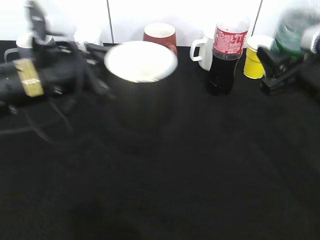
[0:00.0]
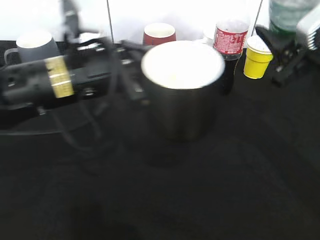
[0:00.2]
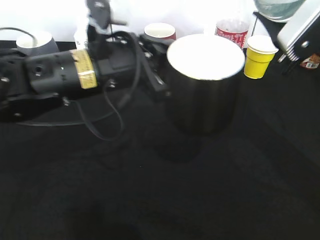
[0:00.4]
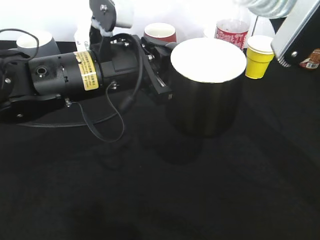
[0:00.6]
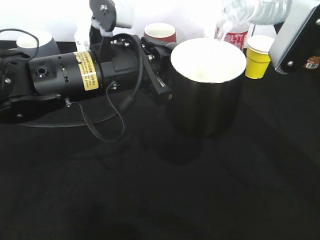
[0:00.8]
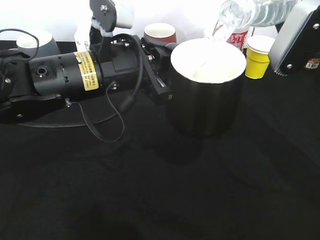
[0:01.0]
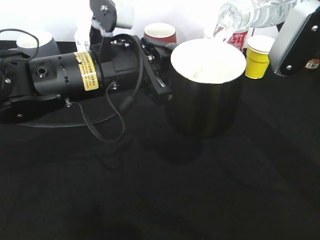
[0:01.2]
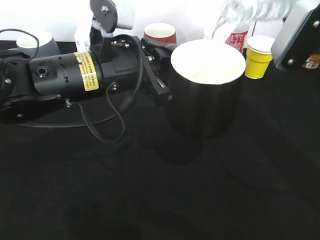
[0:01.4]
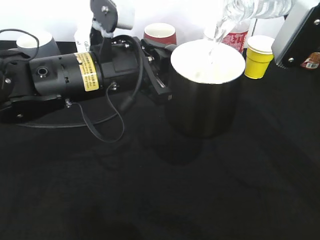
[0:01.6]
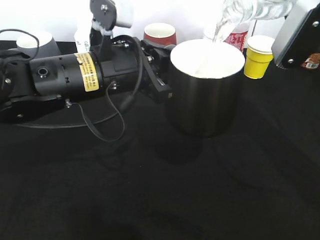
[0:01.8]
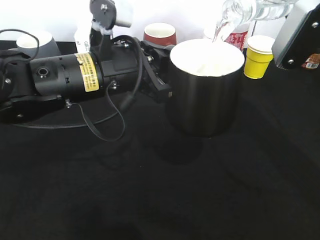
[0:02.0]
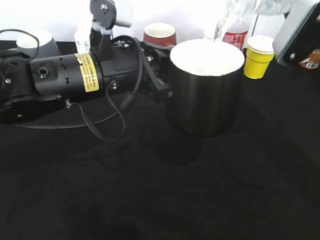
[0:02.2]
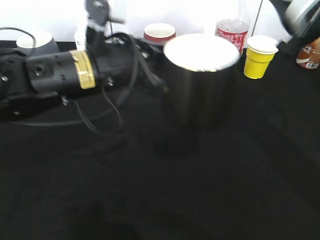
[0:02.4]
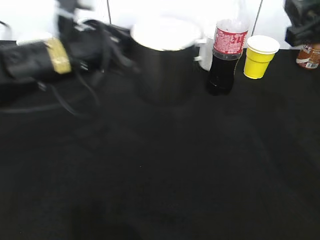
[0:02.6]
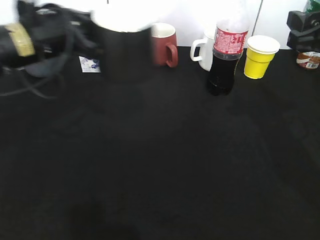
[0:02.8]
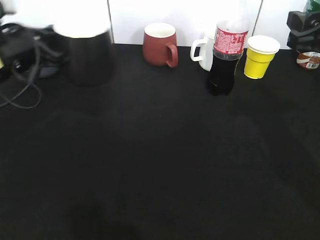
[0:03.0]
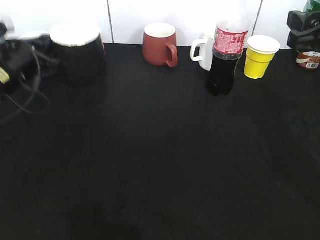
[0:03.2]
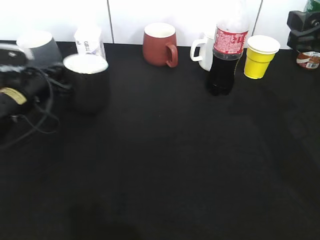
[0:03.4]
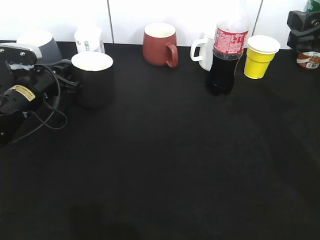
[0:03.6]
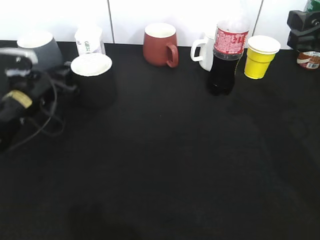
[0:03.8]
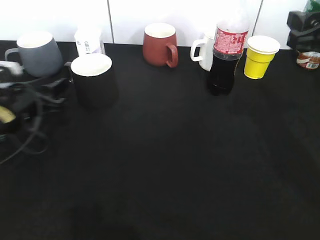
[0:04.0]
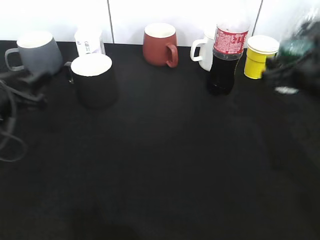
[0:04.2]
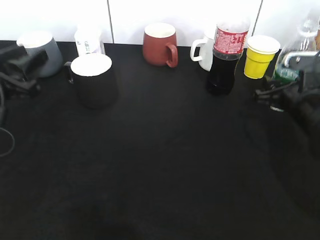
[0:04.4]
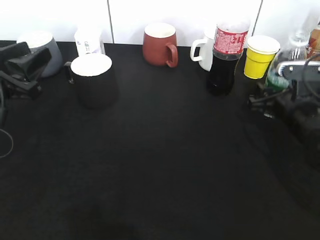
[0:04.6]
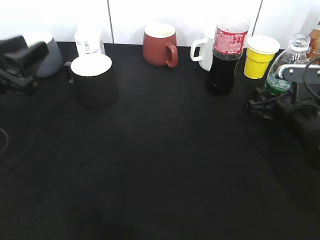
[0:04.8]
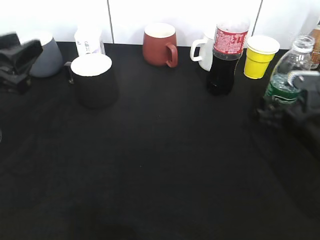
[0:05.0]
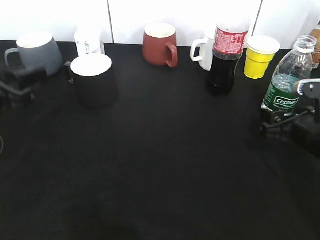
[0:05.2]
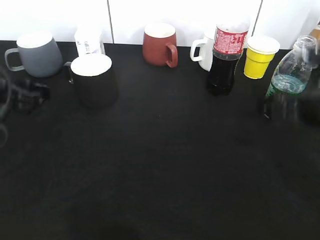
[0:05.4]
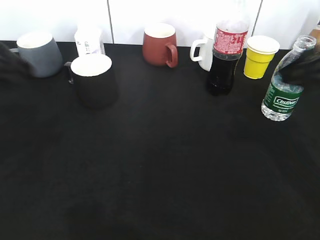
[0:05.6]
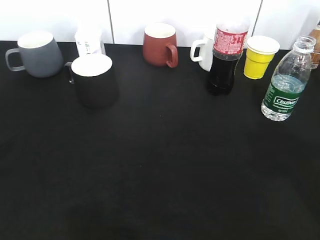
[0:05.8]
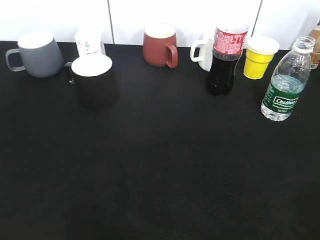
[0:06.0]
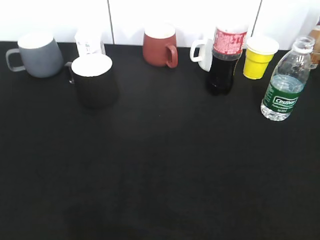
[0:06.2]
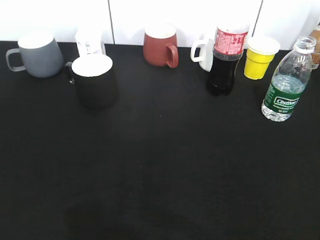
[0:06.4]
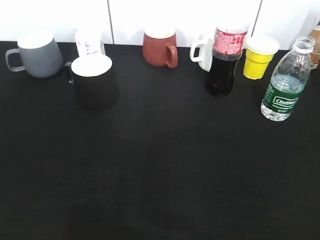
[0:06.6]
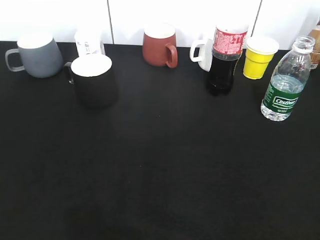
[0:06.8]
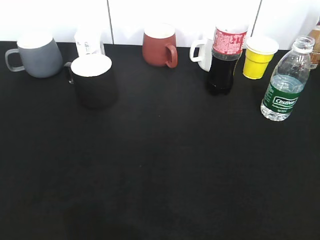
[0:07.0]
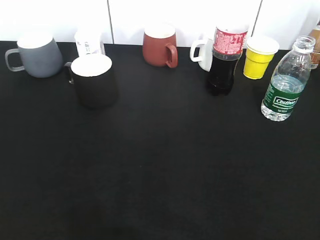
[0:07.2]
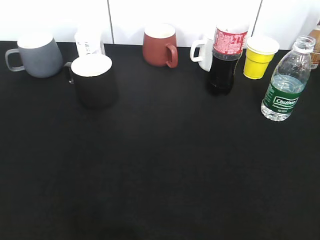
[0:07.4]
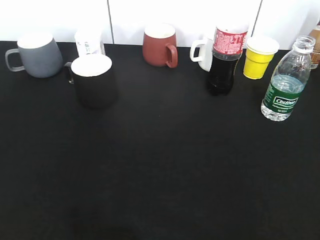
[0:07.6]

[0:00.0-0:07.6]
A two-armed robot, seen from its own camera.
Step, 0:00.0 to 0:02.4: Pour the water from bottle to cup with right gripper.
Step, 0:02.6 to 0:03.8: Place the black cup on the table with left gripper.
Step, 0:04.0 to 0:05.2: Place the water bottle on the table with right gripper.
0:00.0 to 0:01.6: The left gripper goes roughly 5 cm to the right, while the right gripper shifts approximately 10 cm upward.
0:01.6 to 0:03.0: The left gripper shifts roughly 15 cm to the left.
0:03.0 to 0:04.6: The right gripper is displaced downward by some 15 cm. Meanwhile the left gripper goes roughly 5 cm backward, and opens its fingers.
0:04.6 to 0:06.0: Both grippers travel together backward and upward, about 30 cm. The right gripper opens.

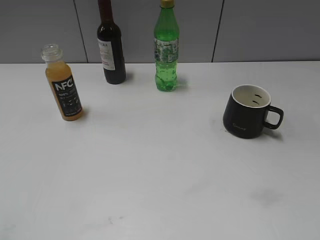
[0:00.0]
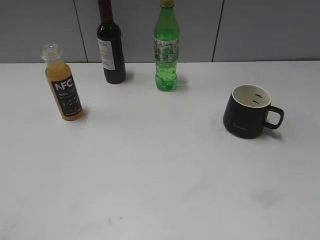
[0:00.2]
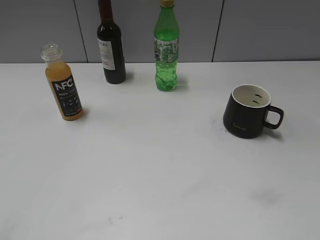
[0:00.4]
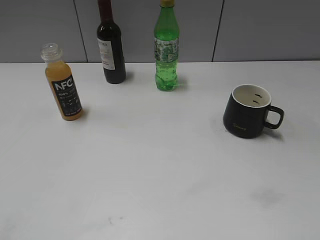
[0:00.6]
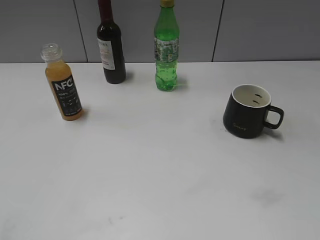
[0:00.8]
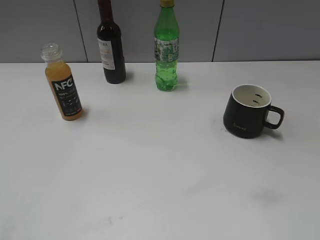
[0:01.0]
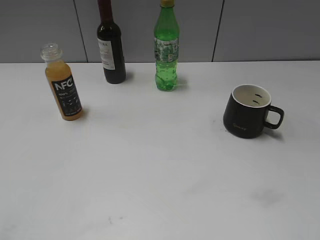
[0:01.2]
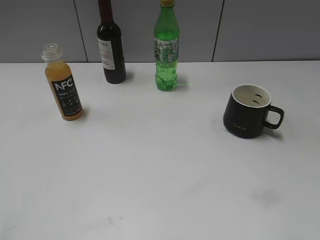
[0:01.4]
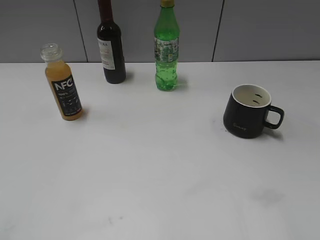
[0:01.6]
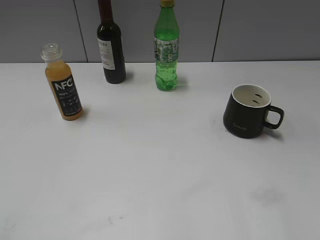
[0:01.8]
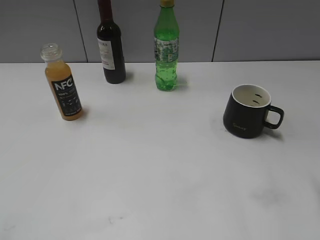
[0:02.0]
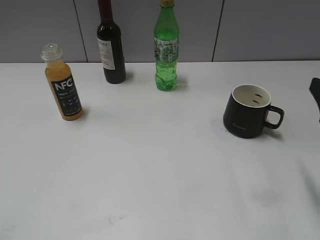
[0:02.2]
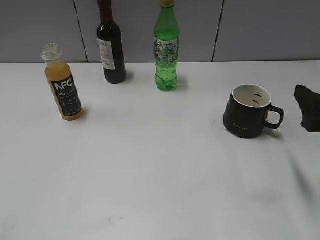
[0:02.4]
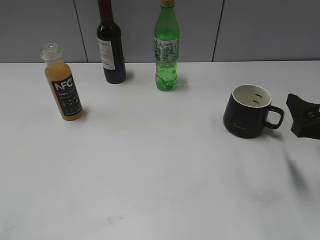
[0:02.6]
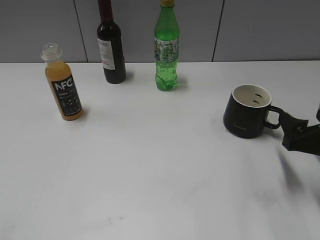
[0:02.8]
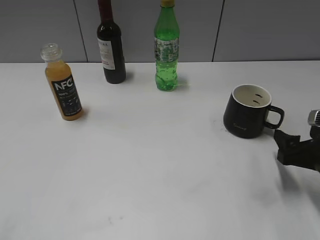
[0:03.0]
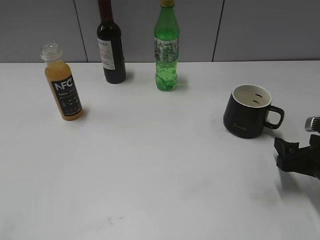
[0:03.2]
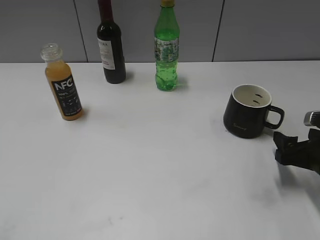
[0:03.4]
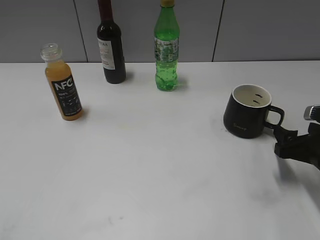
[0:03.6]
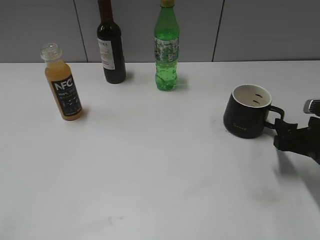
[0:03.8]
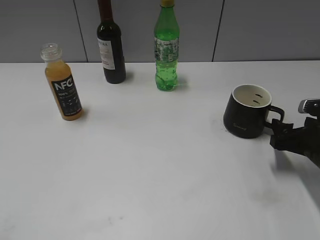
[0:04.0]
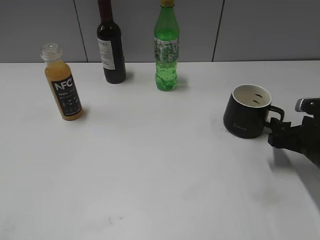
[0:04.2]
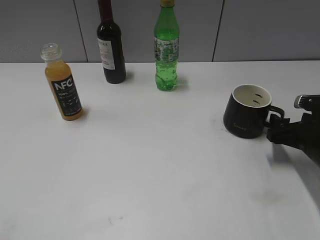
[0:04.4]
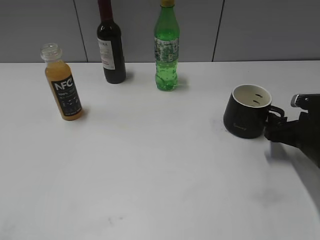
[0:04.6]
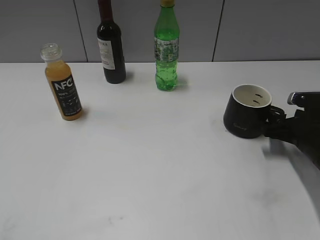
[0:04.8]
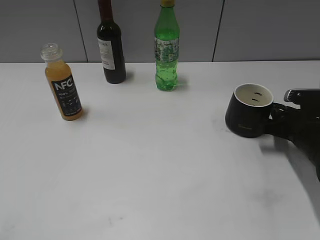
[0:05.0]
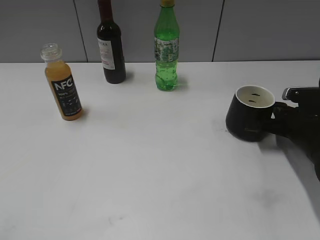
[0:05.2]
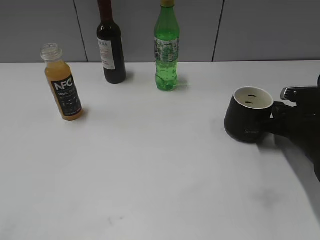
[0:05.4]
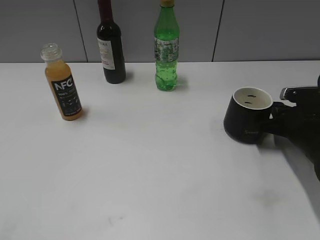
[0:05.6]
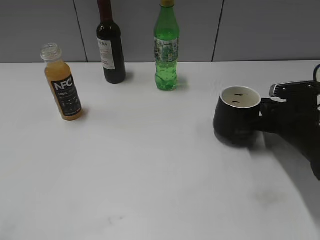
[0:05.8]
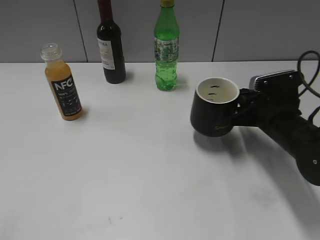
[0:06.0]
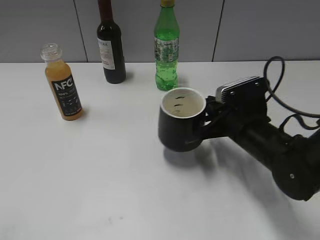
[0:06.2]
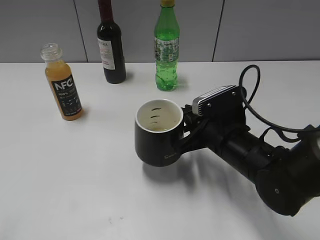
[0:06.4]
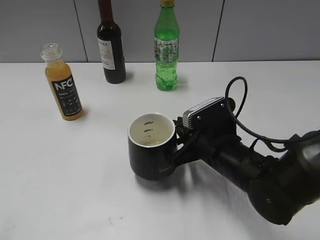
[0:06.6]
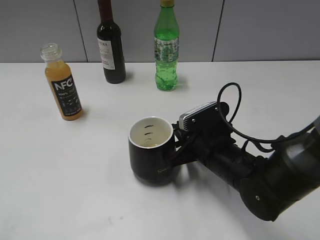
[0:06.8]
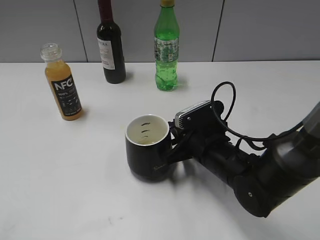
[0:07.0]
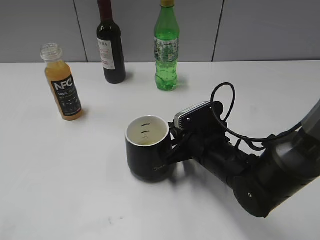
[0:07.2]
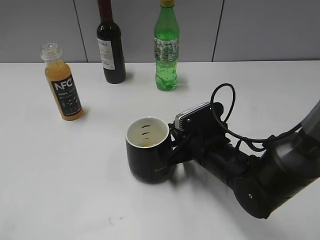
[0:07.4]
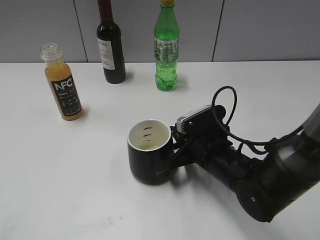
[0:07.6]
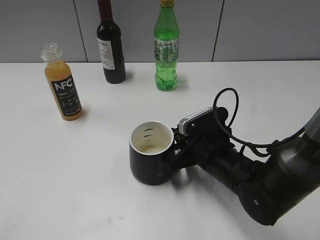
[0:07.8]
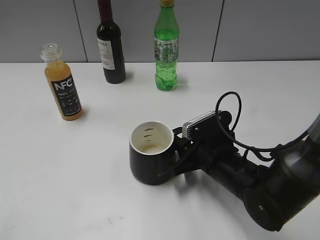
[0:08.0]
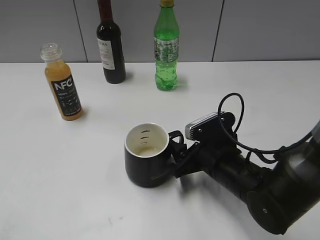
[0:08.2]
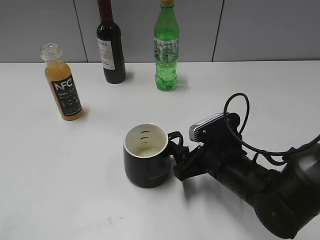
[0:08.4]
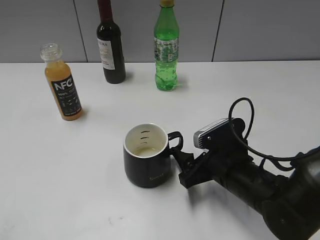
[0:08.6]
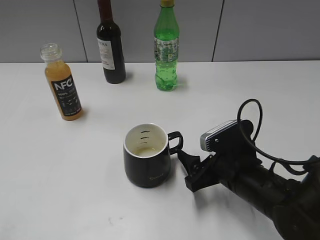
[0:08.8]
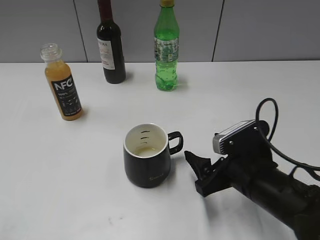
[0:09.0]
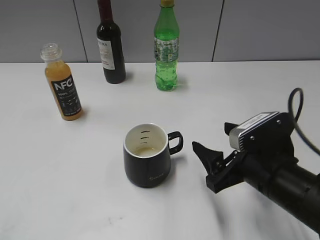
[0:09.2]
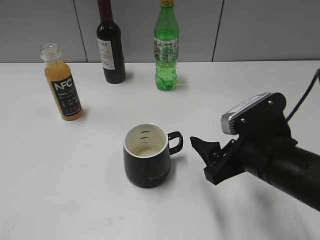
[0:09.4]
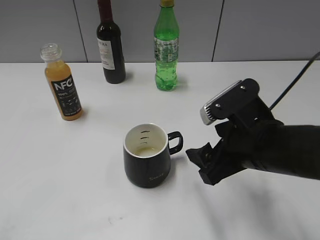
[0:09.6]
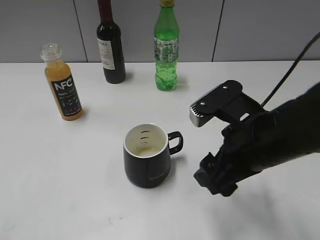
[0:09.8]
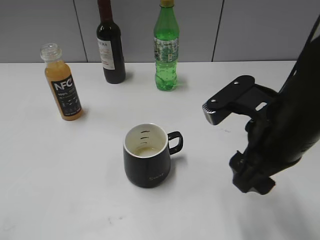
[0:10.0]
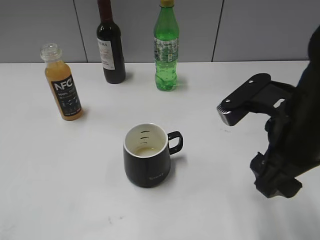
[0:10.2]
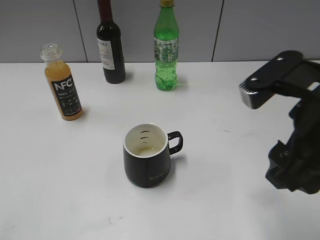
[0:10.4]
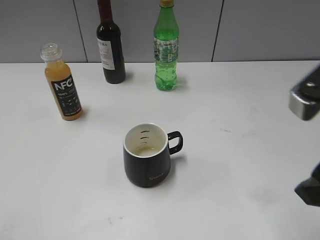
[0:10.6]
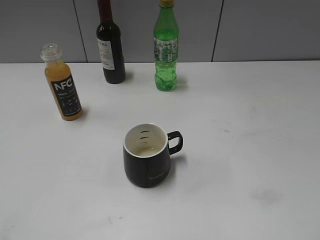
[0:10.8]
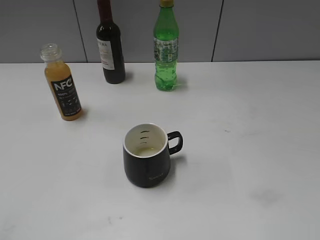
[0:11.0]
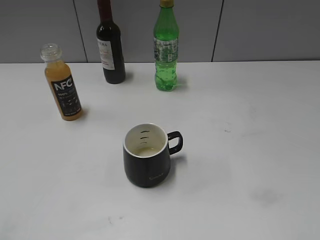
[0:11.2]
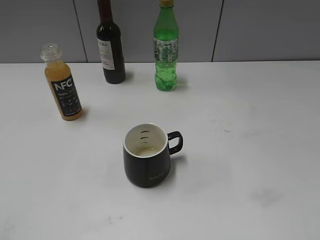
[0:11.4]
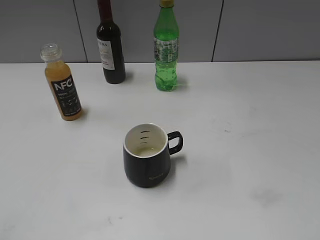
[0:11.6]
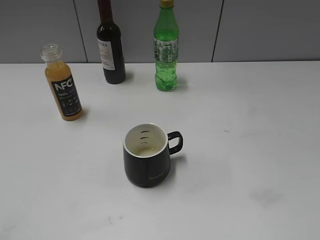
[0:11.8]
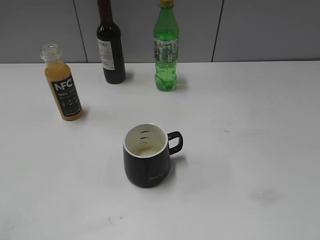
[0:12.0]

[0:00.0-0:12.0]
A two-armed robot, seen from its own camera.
Step, 0:02.2 to 0:05.2: Grasp the black cup with right gripper.
Step, 0:05.6 to 0:08.4: Place the black cup in the center of view with right gripper.
0:01.6 to 0:03.0: The right gripper heads downward and forward, covering roughly 20 cm.
0:03.0 to 0:04.4: The right gripper shifts by some 5 cm.
0:04.4 to 0:06.0: The right gripper shifts some 5 cm to the left, and closes its fingers.
0:06.0 to 0:07.6: The right gripper goes some 15 cm to the left.
0:07.6 to 0:09.0: The right gripper moves backward, roughly 5 cm, and opens its fingers.
0:09.0 to 0:10.4: The right gripper goes approximately 15 cm upward.
0:10.4 to 0:12.0: The right gripper travels backward and to the right by some 20 cm.

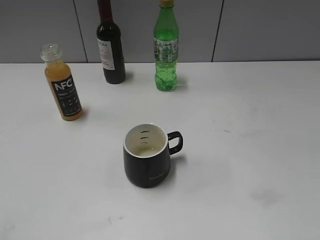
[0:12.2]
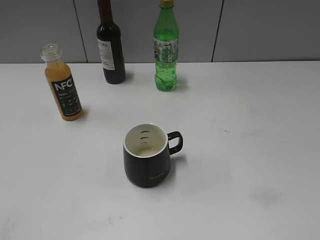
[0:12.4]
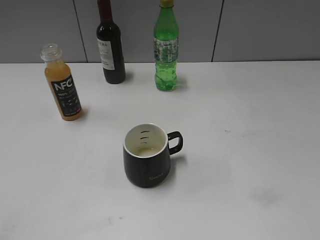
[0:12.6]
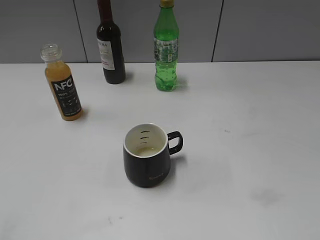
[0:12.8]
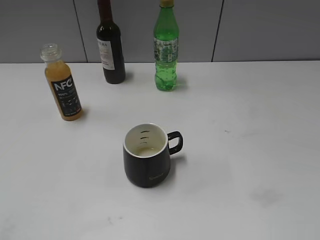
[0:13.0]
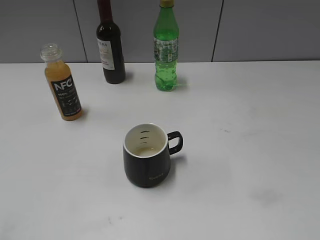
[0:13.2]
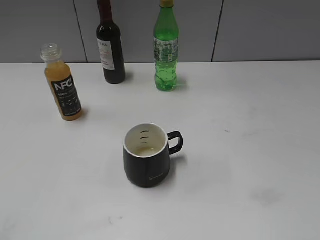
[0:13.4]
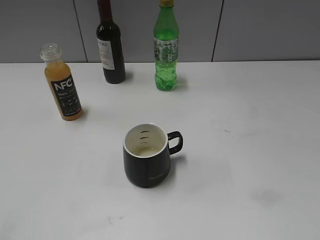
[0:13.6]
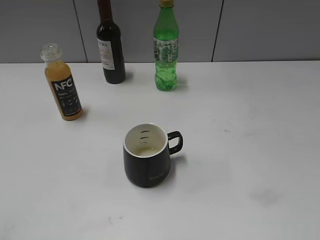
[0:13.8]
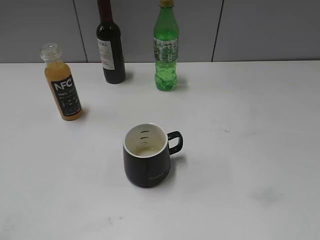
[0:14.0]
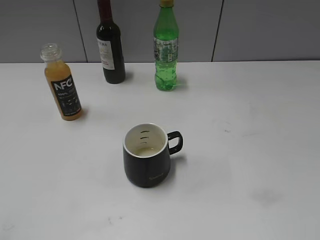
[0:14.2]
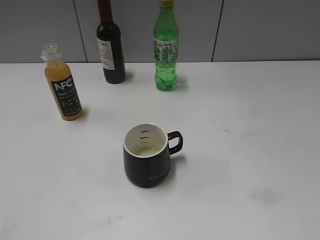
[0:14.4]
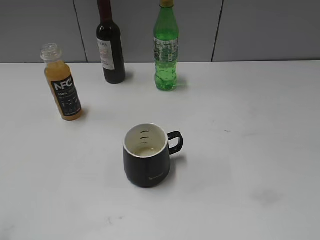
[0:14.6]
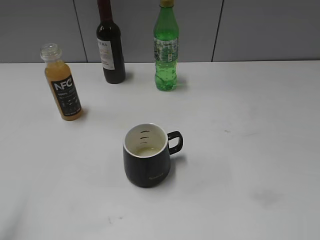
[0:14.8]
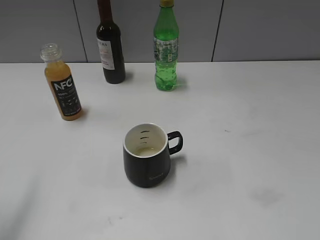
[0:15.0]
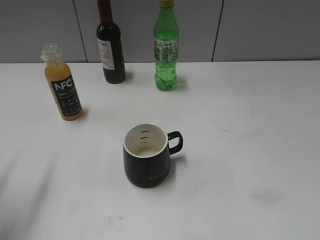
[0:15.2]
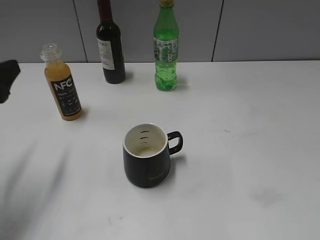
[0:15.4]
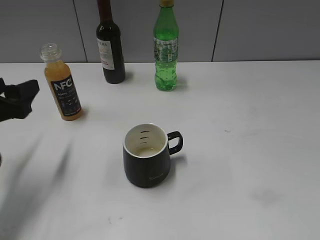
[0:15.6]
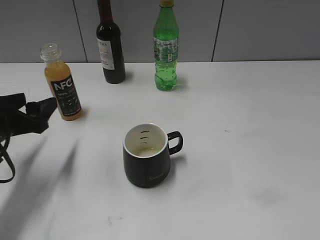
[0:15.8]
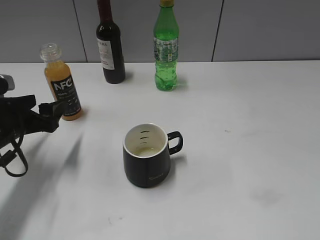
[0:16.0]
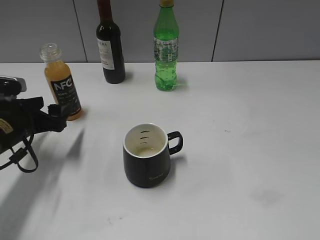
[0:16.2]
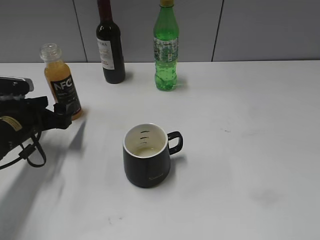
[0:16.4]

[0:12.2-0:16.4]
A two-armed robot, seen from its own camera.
0:13.6 to 0:15.0: The left gripper shifts approximately 15 cm forward, and opens its fingers.
0:15.0 to 0:16.4: The left gripper travels downward and forward by about 25 cm.
